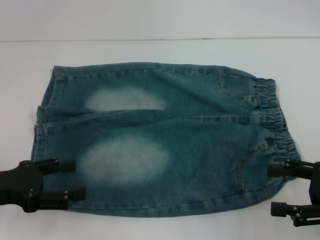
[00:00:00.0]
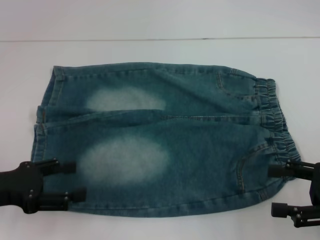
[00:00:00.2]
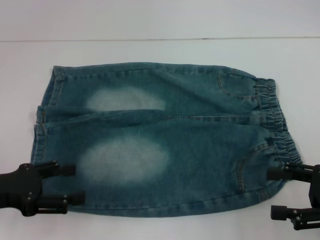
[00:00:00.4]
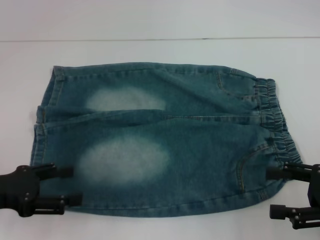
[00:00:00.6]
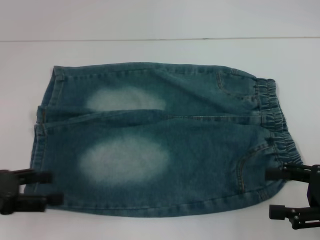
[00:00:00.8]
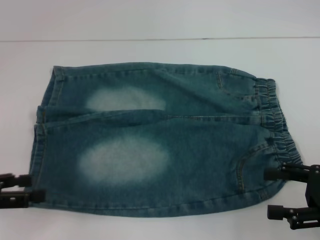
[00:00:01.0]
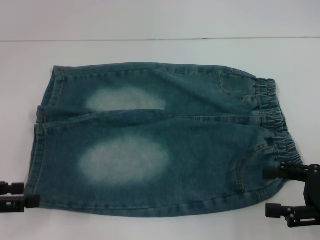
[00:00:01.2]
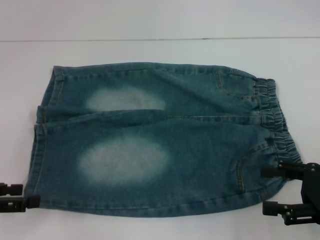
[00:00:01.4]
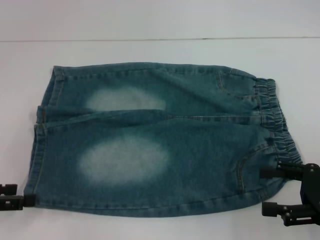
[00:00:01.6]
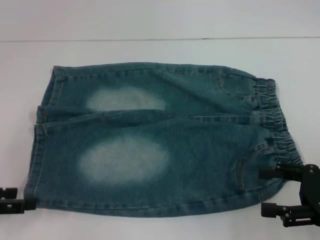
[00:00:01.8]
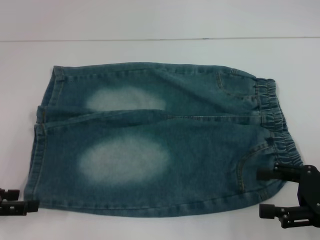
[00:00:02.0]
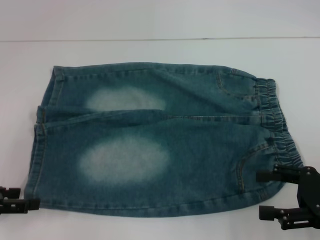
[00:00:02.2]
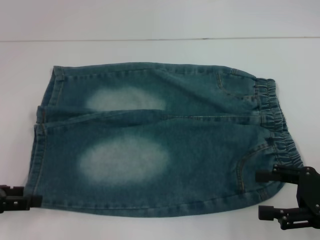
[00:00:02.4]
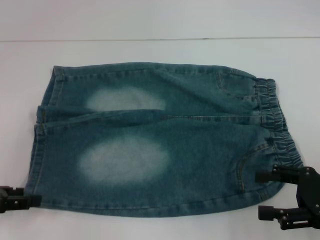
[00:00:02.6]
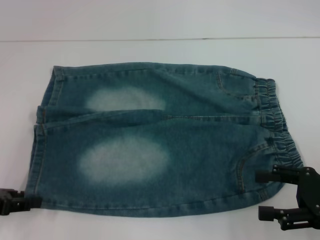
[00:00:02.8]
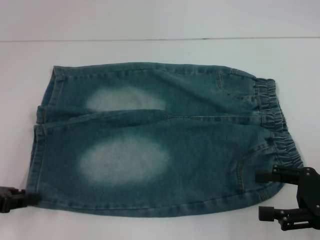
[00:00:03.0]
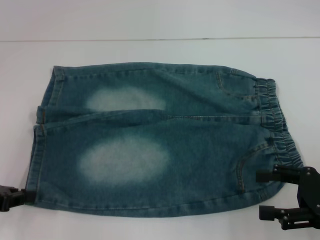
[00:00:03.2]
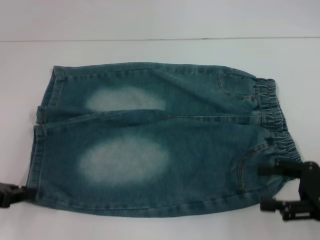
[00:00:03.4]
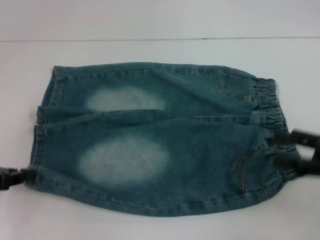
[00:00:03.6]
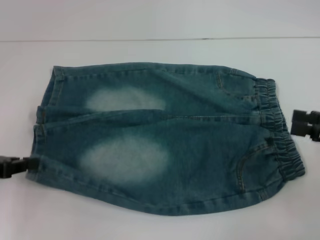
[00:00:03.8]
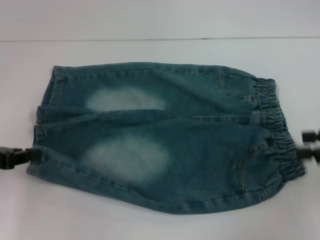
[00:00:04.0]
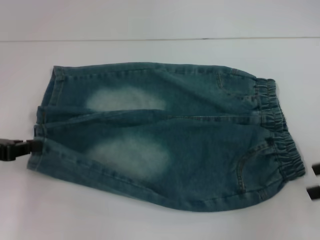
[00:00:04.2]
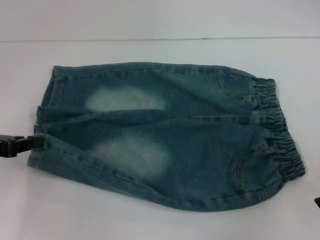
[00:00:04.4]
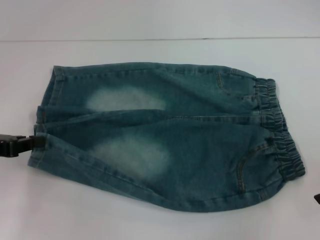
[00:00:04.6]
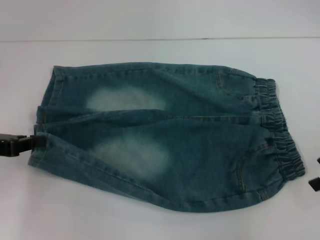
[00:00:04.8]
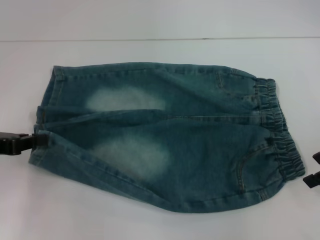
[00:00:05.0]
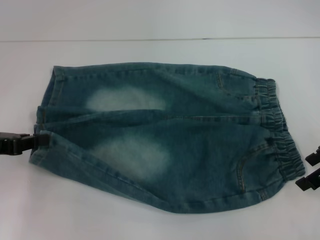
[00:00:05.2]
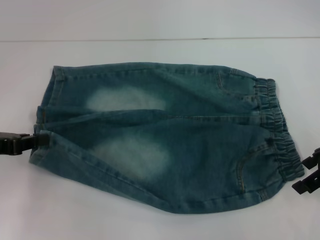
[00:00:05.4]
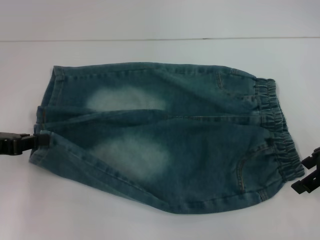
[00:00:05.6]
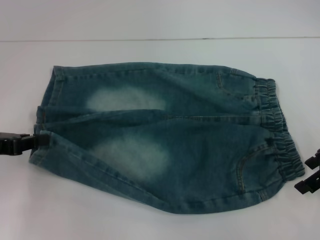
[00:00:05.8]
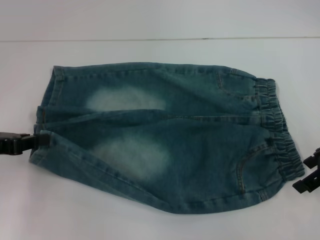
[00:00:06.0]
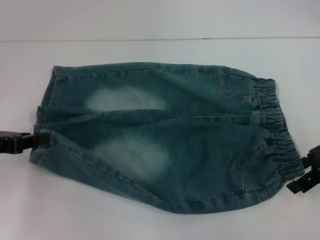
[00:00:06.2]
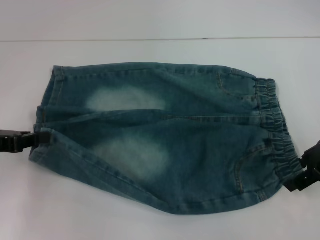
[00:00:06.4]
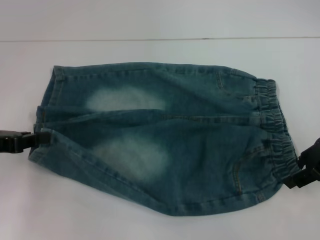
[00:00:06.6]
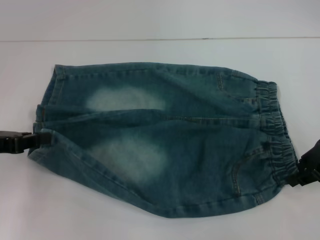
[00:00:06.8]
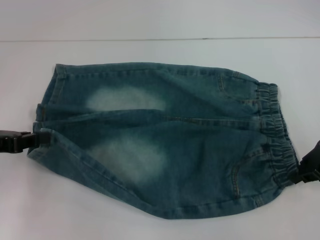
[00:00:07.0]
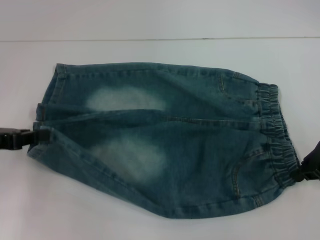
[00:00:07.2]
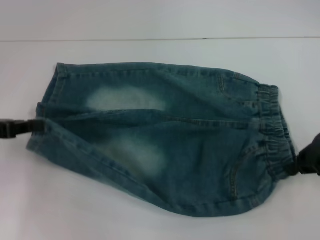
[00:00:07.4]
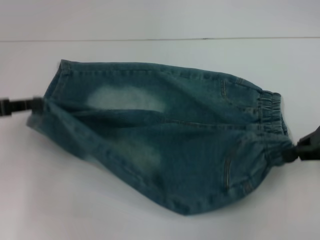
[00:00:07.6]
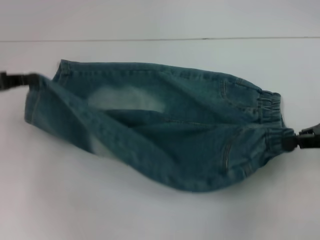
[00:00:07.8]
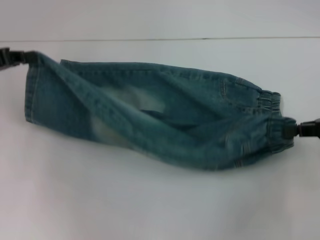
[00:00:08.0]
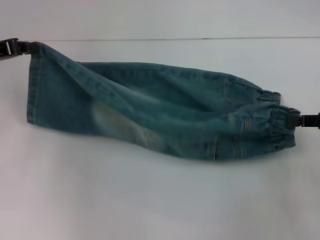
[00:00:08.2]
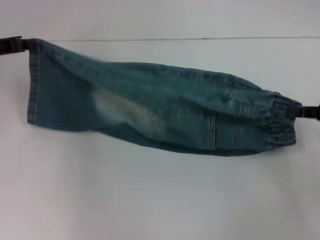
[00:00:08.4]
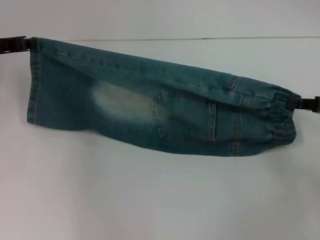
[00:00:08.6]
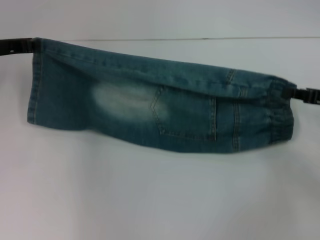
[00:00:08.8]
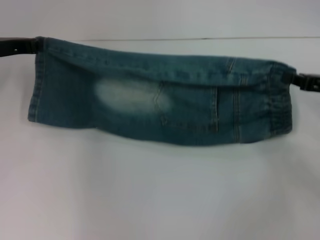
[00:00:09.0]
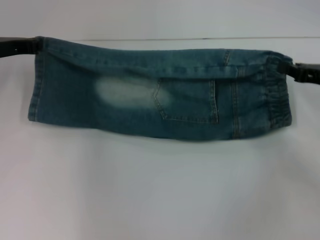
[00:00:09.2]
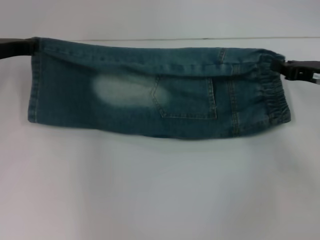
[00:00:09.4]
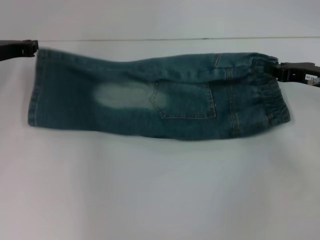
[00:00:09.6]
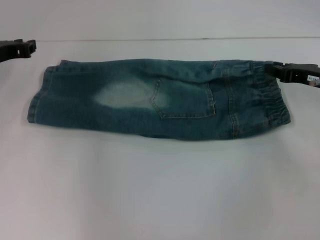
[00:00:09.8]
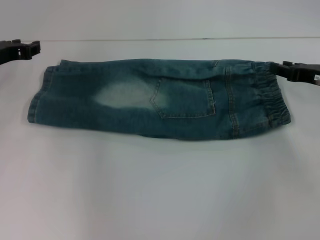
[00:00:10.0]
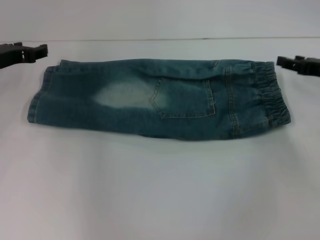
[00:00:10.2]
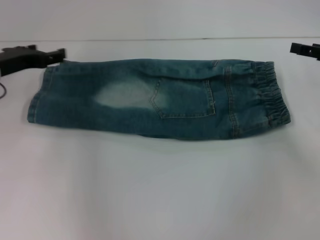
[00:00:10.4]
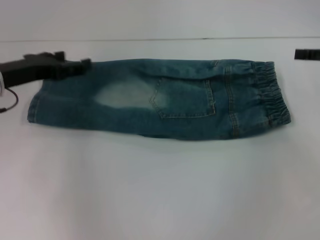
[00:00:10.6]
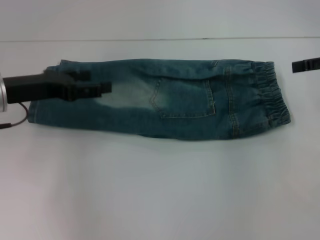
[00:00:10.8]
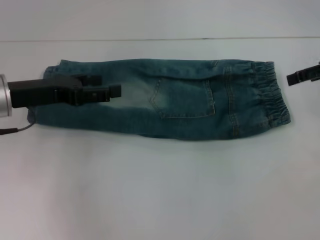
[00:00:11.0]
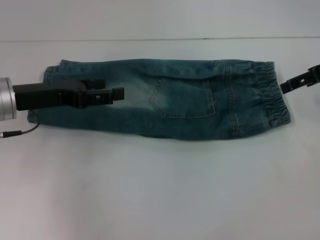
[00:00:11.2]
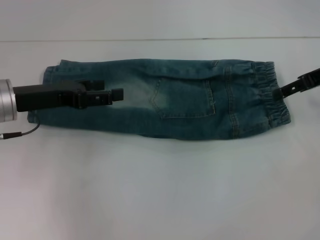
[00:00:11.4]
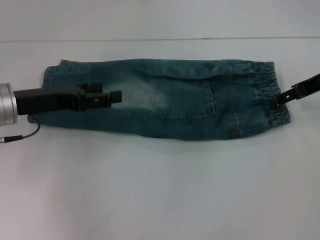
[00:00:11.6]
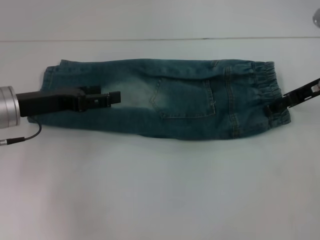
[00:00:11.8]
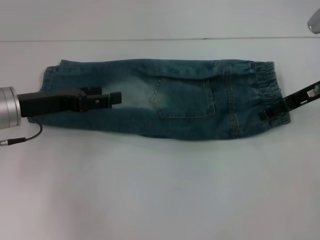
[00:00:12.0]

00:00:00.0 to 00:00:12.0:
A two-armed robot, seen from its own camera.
Step, 00:00:00.0 to 00:00:03.2: Grab the lower left pant leg with your left hand.
Step, 00:00:03.4 to 00:00:06.8: Hold the lower right waistband with your right hand.
Step, 00:00:07.0 to 00:00:10.0: Fold upward with your right hand.
00:00:00.0 to 00:00:01.6: The left gripper goes about 5 cm to the left.
00:00:03.0 to 00:00:04.4: The left gripper closes up, while the right gripper travels upward and forward by roughly 10 cm.
00:00:04.4 to 00:00:06.0: The right gripper moves to the left and forward, about 5 cm.
00:00:06.0 to 00:00:07.6: The right gripper closes up.
00:00:07.6 to 00:00:09.0: The right gripper travels downward by approximately 5 cm. Meanwhile the left gripper is displaced forward by some 10 cm.
00:00:09.0 to 00:00:10.4: The right gripper opens. Meanwhile the left gripper opens.
00:00:10.4 to 00:00:12.0: The right gripper moves to the left, some 5 cm. The left gripper moves roughly 5 cm.

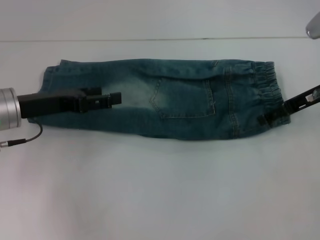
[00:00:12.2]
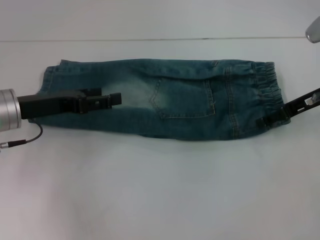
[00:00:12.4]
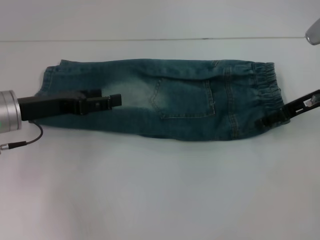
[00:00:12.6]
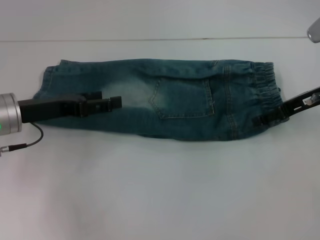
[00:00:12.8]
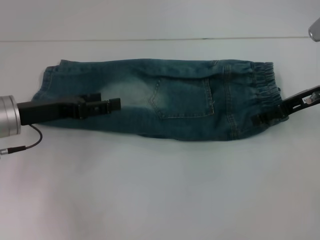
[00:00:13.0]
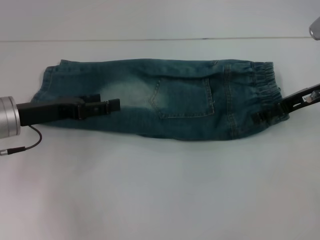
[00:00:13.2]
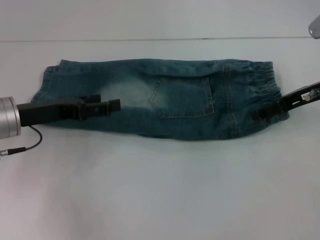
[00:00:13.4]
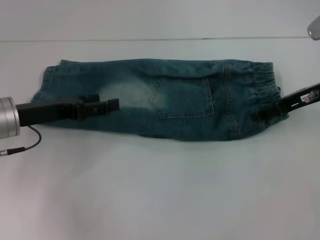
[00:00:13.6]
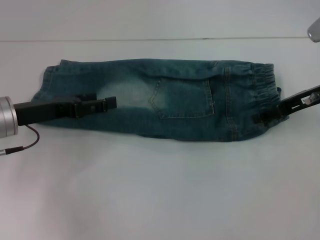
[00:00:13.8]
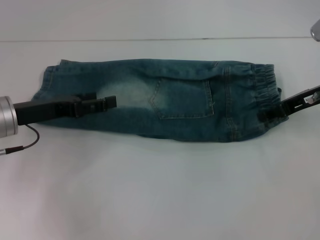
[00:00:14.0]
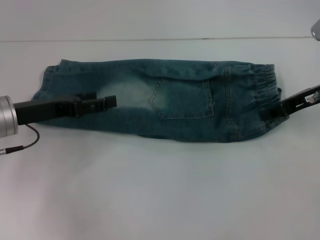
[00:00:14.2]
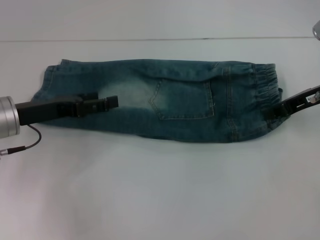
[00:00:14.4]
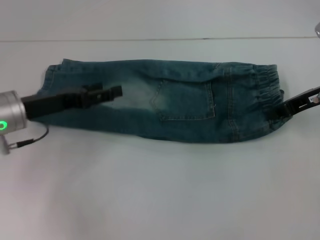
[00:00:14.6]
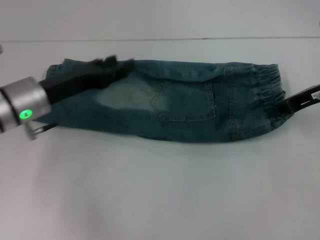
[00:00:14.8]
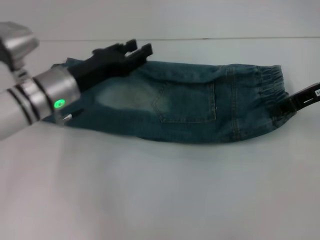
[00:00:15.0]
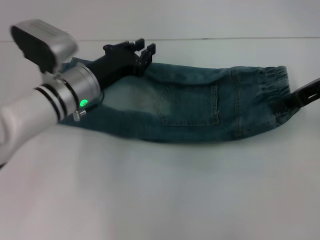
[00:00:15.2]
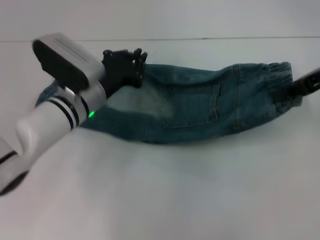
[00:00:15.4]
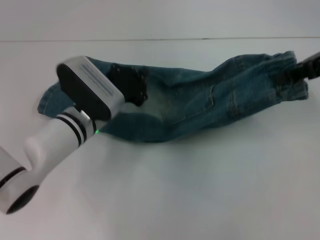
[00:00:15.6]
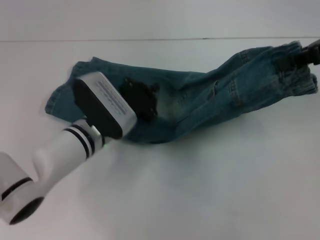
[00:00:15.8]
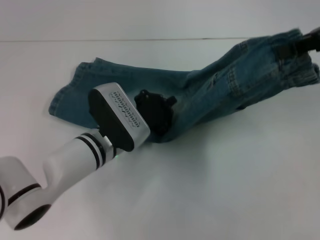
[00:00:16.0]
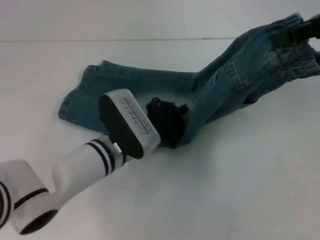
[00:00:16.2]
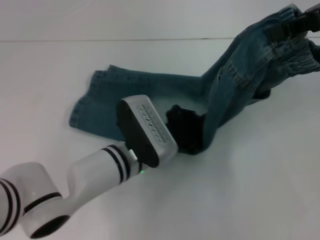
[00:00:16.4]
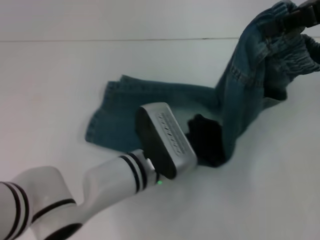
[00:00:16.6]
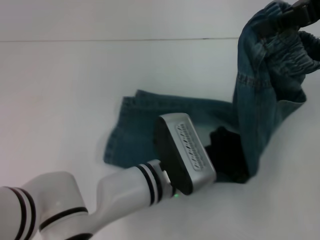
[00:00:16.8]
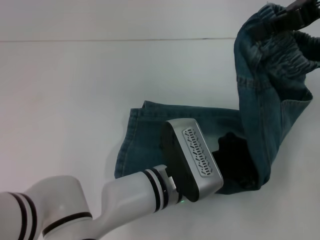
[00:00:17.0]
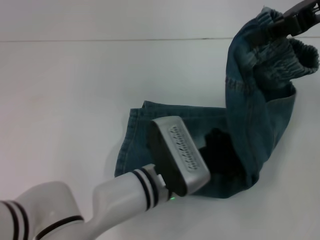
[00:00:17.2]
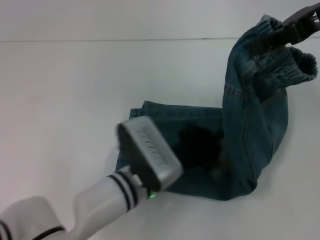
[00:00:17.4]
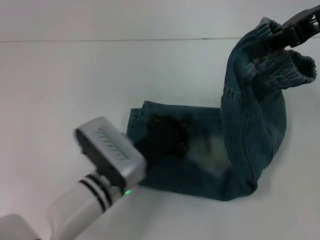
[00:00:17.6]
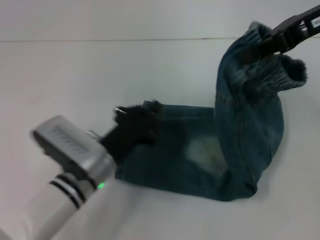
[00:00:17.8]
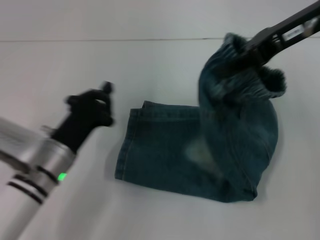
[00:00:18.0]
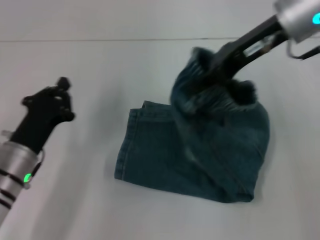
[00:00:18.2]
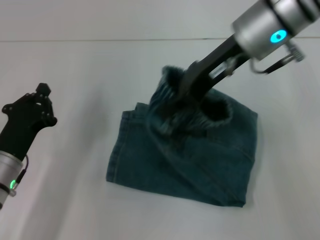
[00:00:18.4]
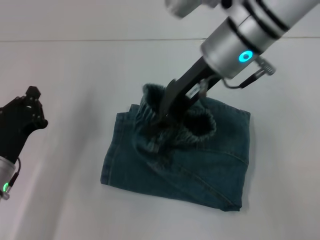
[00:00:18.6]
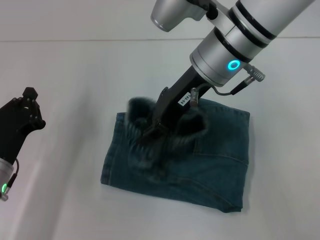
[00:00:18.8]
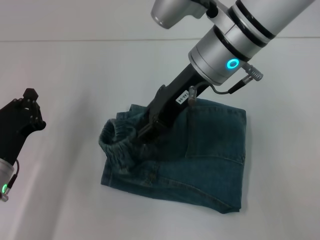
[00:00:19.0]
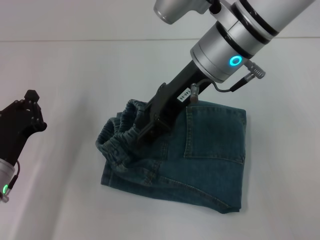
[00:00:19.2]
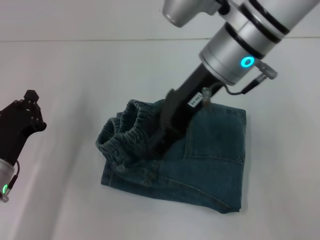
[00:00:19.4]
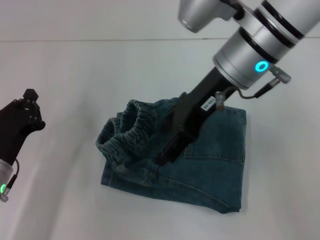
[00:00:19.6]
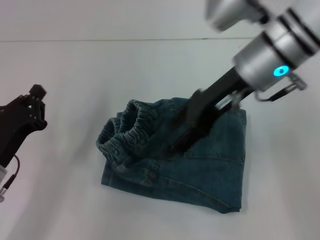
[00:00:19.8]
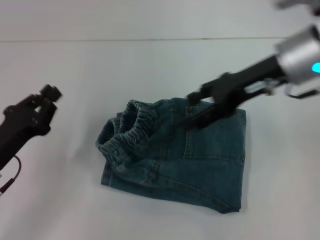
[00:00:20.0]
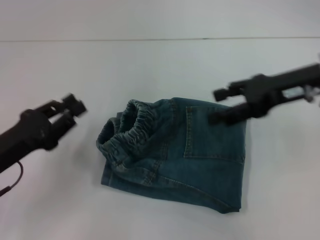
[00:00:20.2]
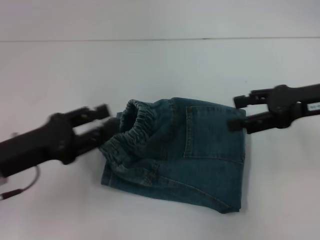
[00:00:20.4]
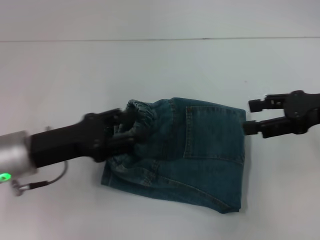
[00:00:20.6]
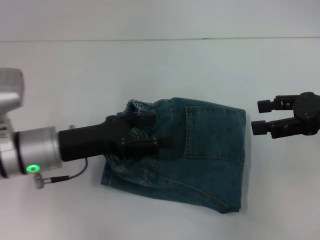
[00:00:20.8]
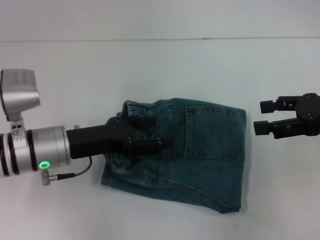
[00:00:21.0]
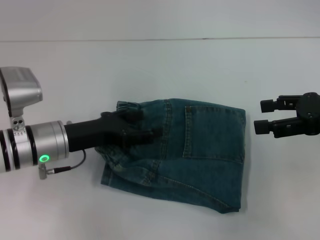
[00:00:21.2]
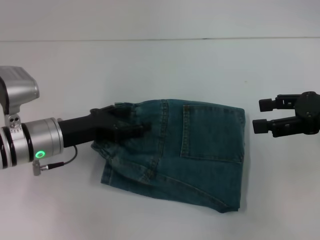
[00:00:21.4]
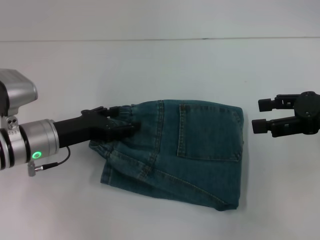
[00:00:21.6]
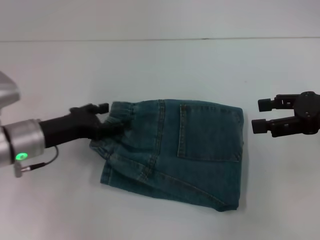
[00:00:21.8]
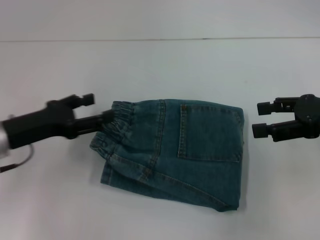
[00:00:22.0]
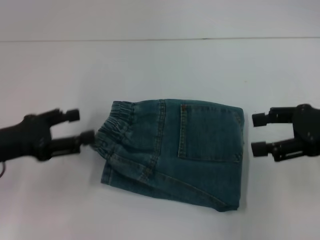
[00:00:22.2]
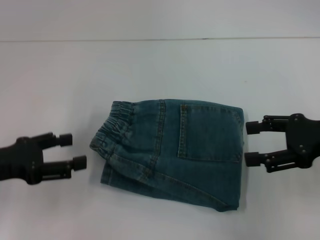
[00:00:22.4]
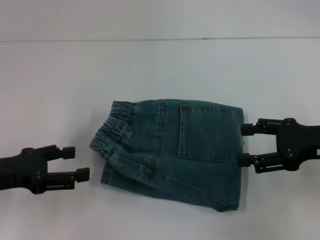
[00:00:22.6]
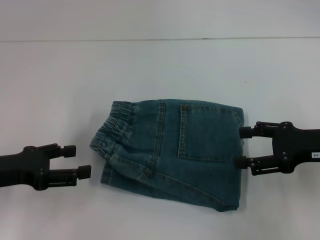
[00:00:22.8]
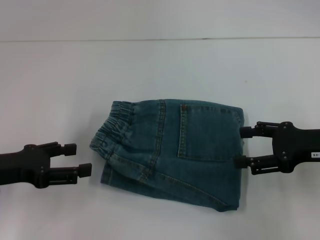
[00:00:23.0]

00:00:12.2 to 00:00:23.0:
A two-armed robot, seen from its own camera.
Step, 00:00:12.2 to 00:00:14.2: Grab the waistband with your right hand.
Step, 00:00:14.6 to 00:00:17.2: Press the middle of the pants with your left hand.
Step, 00:00:17.6 to 00:00:19.2: Fold to the left with your right hand.
Step, 00:00:19.4 to 00:00:21.8: Adjust the pants with your left hand.
00:00:12.2 to 00:00:13.8: There are only small adjustments of the grippers.
00:00:13.8 to 00:00:15.2: The right gripper ends up some 5 cm from where it was, and closes up. The left gripper goes about 10 cm to the right and forward, and closes up.
00:00:15.2 to 00:00:16.8: The left gripper is displaced to the right and backward by roughly 20 cm, and closes. The right gripper heads upward, covering roughly 10 cm.
00:00:16.8 to 00:00:18.4: The right gripper moves to the left and downward, about 15 cm, while the left gripper is displaced to the left by approximately 25 cm.
00:00:18.4 to 00:00:20.0: The right gripper is displaced to the right by about 5 cm, and opens up.
00:00:20.0 to 00:00:21.4: The left gripper moves forward and to the right, roughly 10 cm, and opens its fingers, while the right gripper shifts roughly 15 cm to the right and backward.
00:00:21.4 to 00:00:23.0: The left gripper shifts about 10 cm to the left and backward. Meanwhile the right gripper moves downward, roughly 5 cm.
